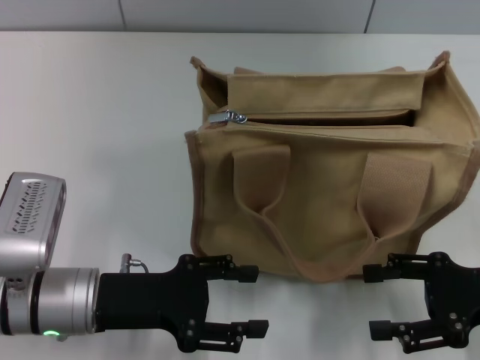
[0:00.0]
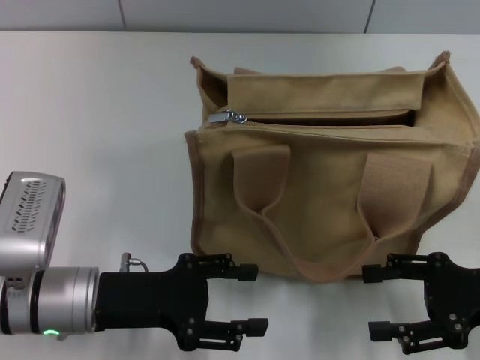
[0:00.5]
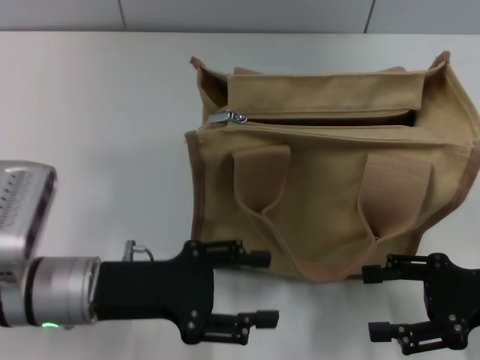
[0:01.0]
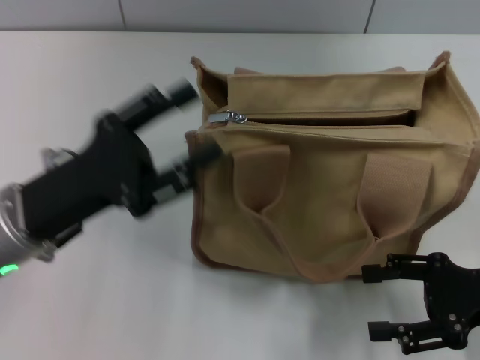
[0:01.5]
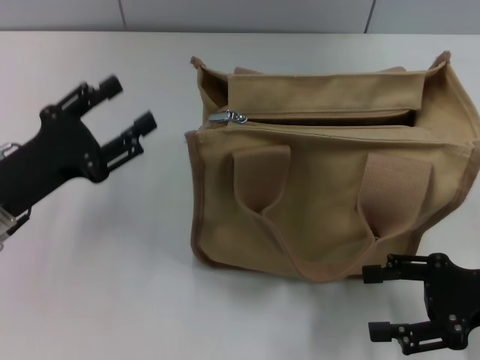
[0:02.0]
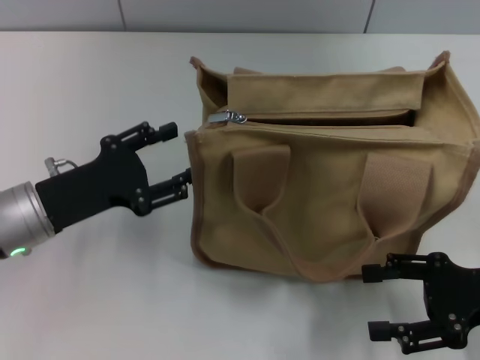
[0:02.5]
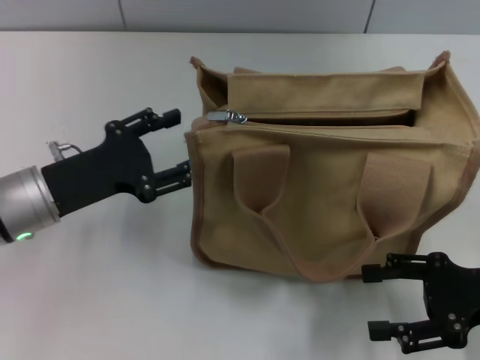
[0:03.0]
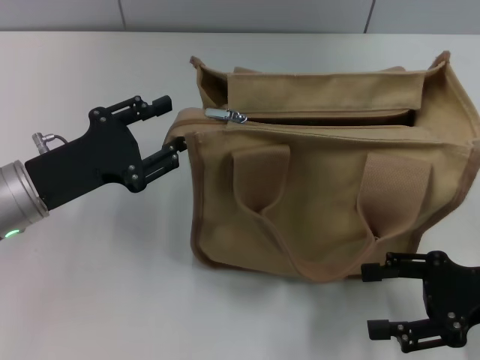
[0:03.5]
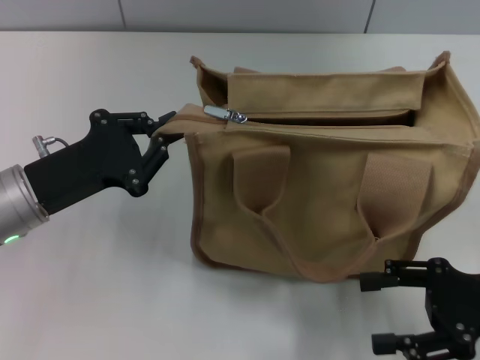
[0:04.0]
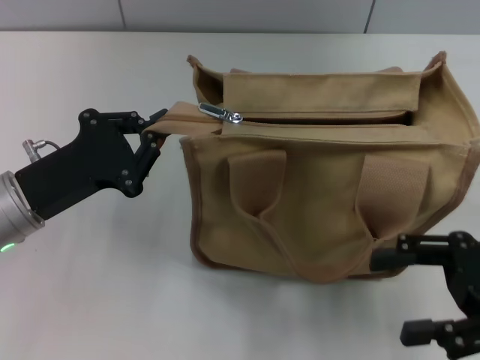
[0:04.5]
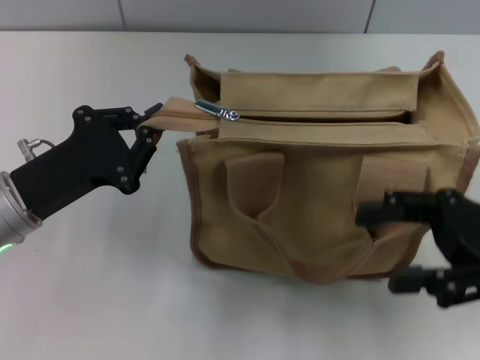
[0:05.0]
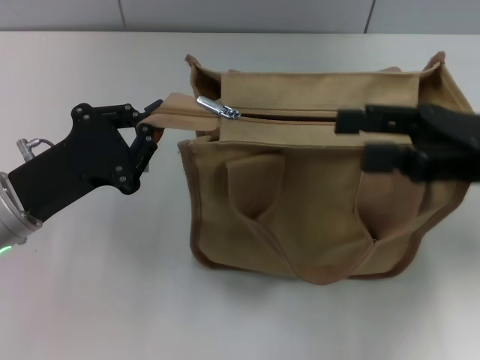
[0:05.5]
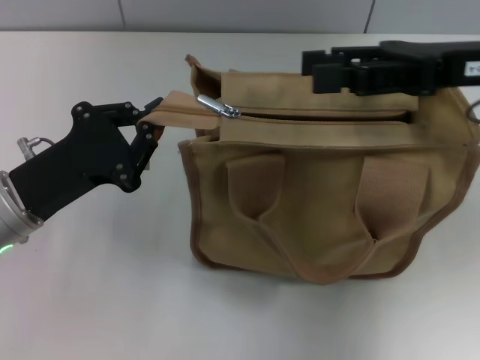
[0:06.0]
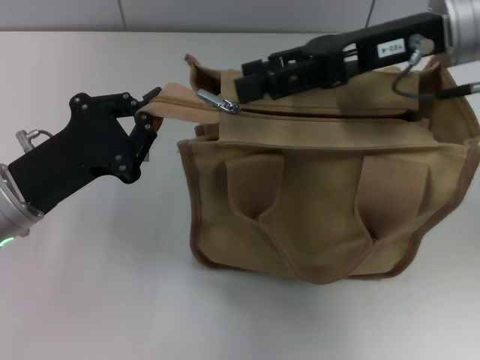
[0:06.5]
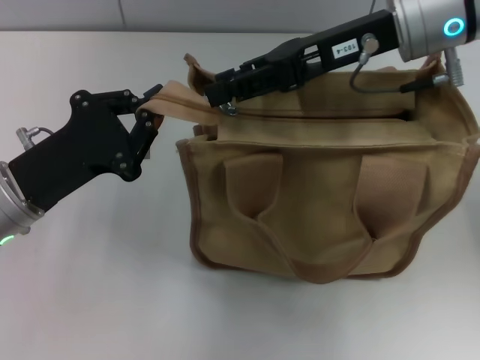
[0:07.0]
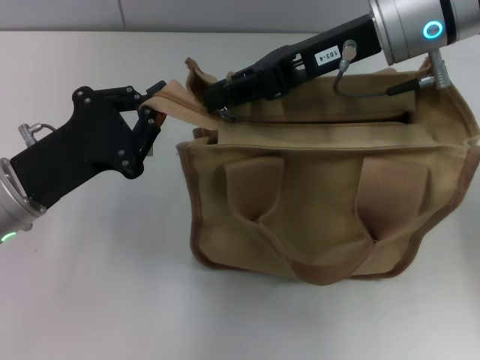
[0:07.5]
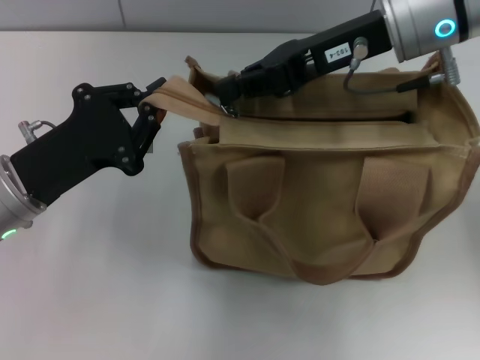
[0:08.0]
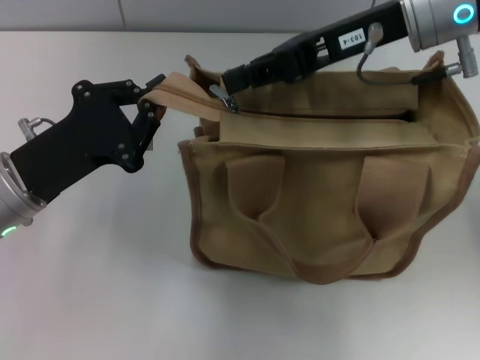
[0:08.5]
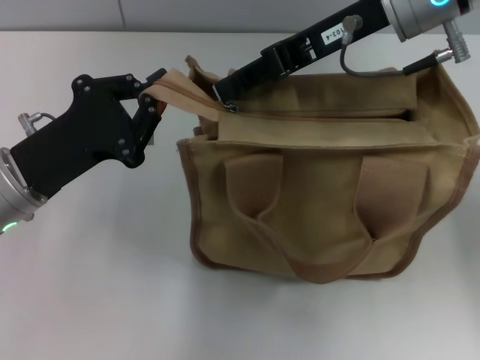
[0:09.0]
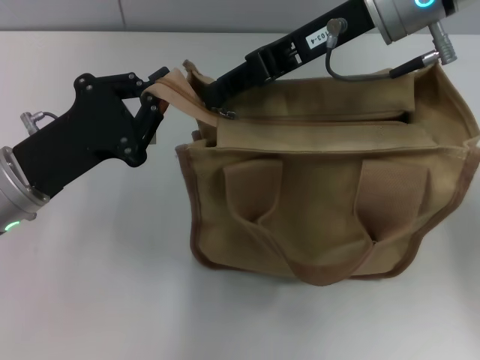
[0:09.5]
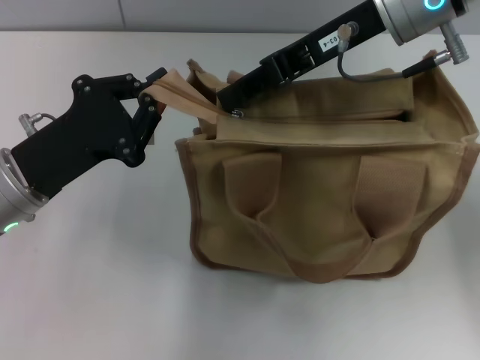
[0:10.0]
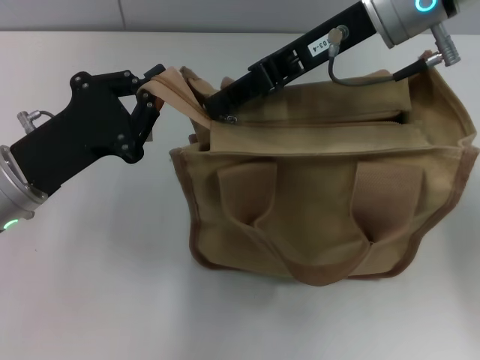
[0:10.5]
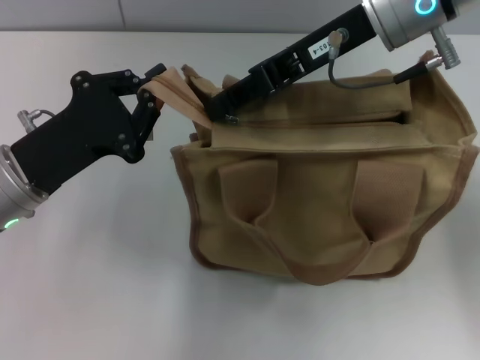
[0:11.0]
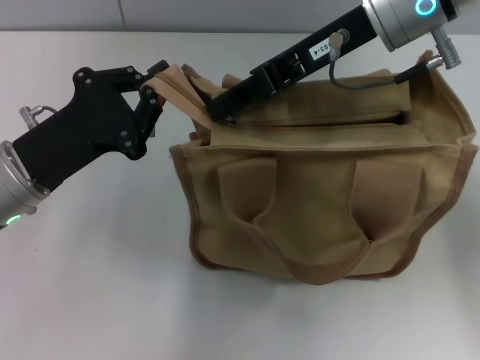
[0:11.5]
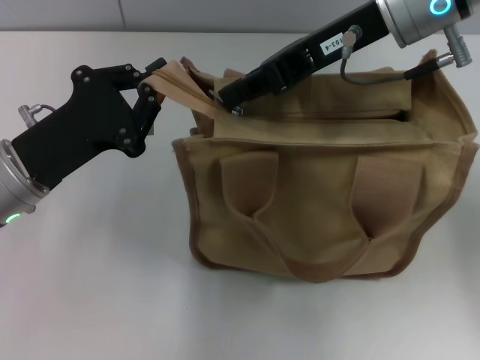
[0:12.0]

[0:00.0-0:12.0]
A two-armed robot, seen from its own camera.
0:00.0 to 0:02.0: The left gripper moves to the left, roughly 5 cm.
0:02.0 to 0:04.0: The left gripper closes.
0:04.0 to 0:06.0: The right gripper goes some 20 cm forward, upward and to the left.
0:06.0 to 0:08.0: The right gripper heads to the left, covering approximately 10 cm, and closes its fingers.
0:08.0 to 0:10.0: There are only small adjustments of the grippers.
0:10.0 to 0:12.0: Both grippers stay about where they are.

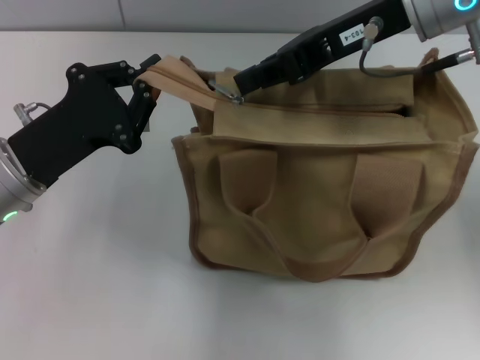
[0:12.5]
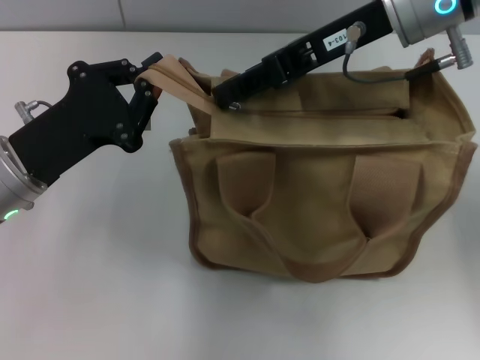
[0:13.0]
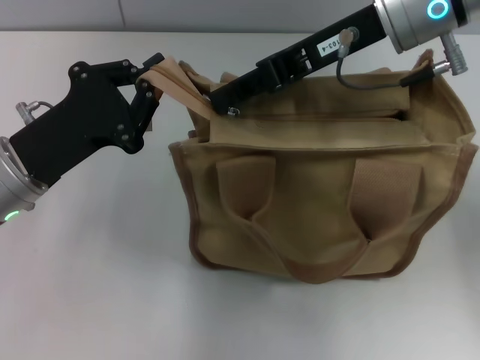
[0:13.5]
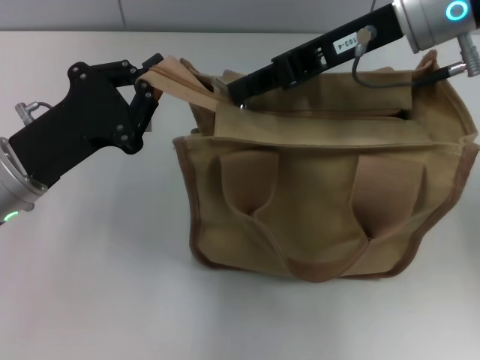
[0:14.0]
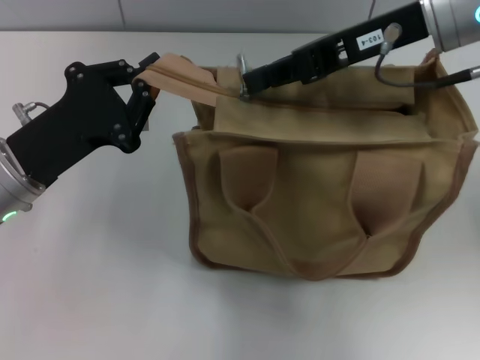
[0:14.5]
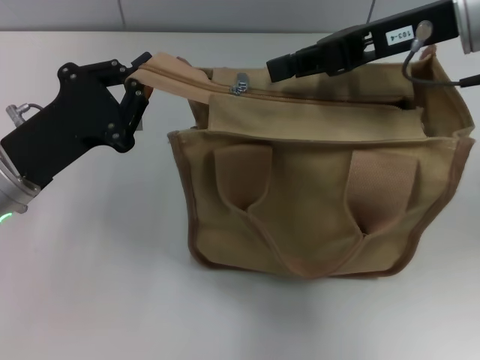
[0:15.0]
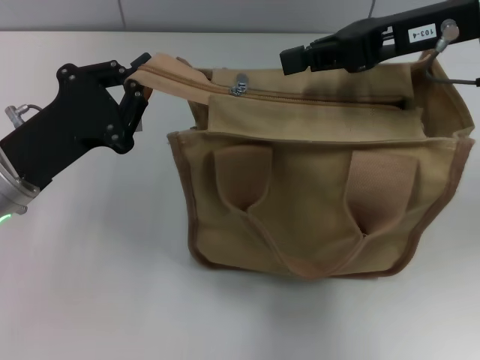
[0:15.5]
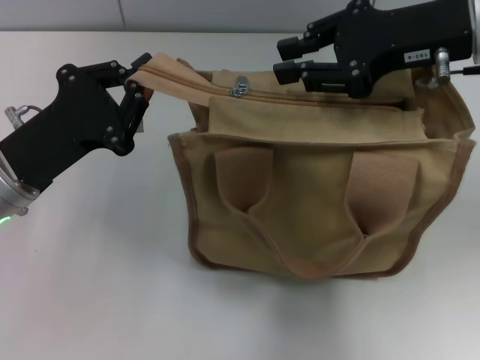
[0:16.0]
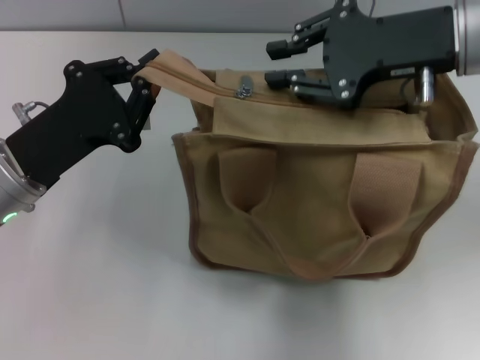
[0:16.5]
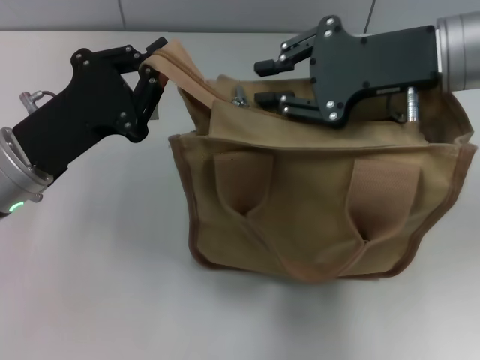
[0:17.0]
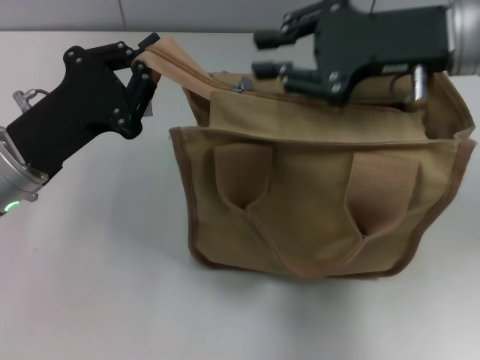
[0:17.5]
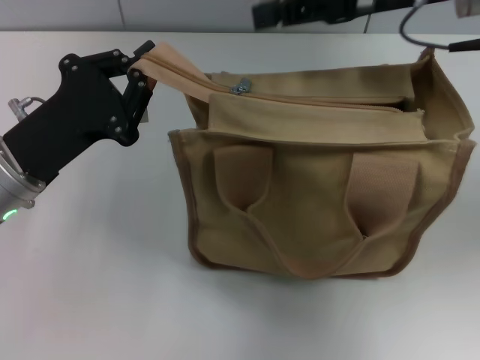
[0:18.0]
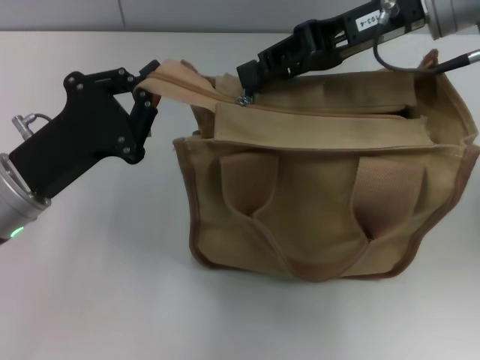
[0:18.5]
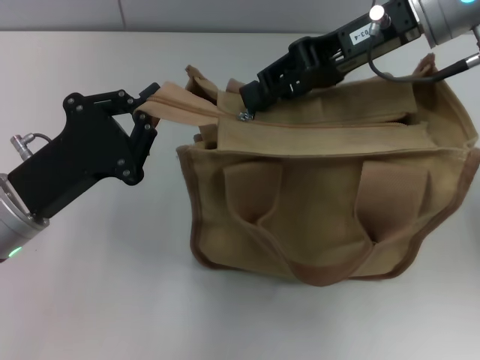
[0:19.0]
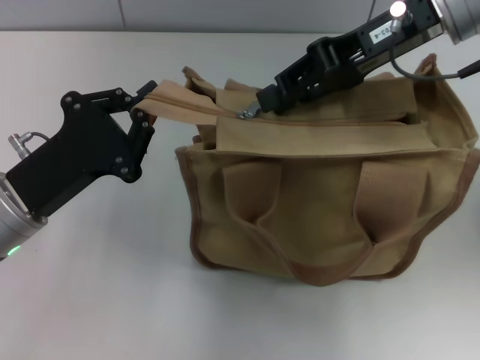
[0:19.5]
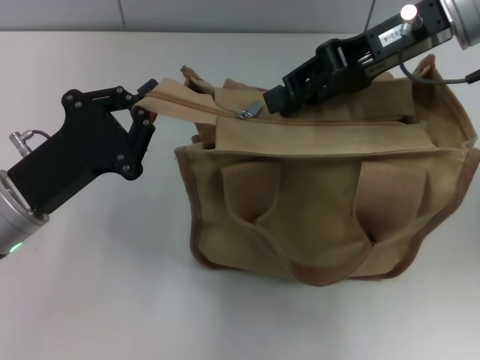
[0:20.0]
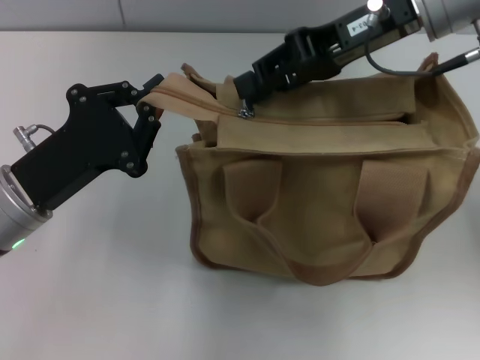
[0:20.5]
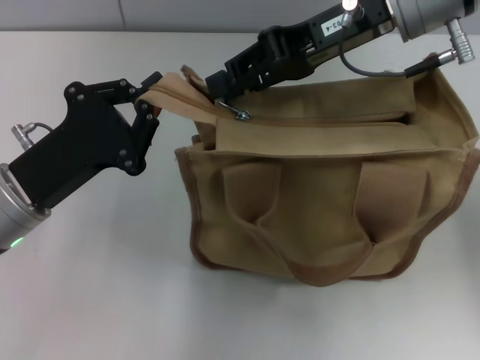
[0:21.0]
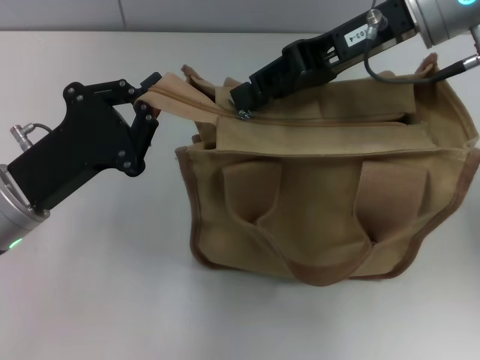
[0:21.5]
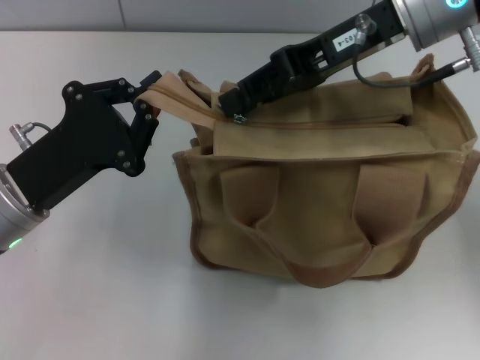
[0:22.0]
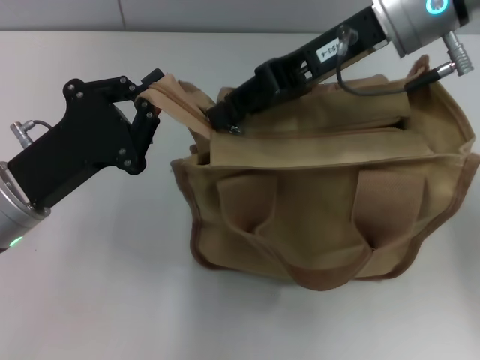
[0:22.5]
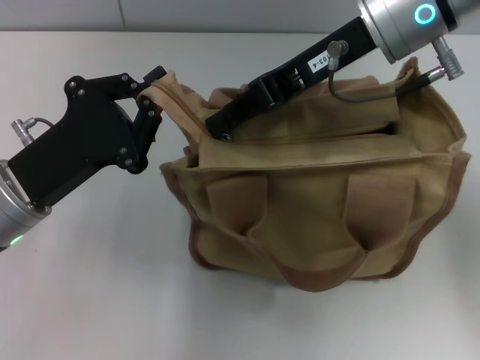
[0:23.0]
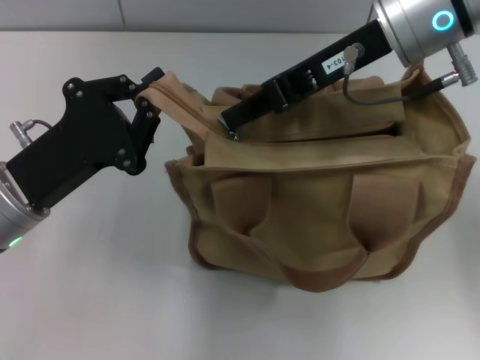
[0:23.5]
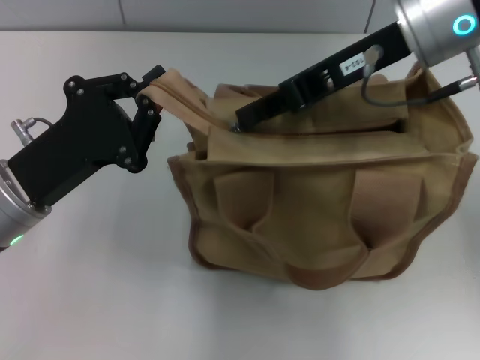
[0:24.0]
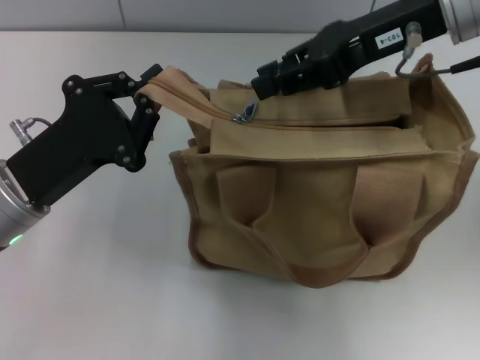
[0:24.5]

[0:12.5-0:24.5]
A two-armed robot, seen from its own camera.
0:12.5 to 0:14.5: There are only small adjustments of the grippers.
0:14.5 to 0:16.5: The right gripper opens its fingers.
0:16.5 to 0:18.5: The right gripper changes place by roughly 5 cm.
0:18.5 to 0:22.5: The grippers move only a little.

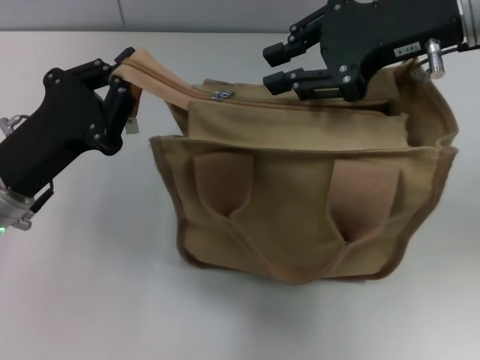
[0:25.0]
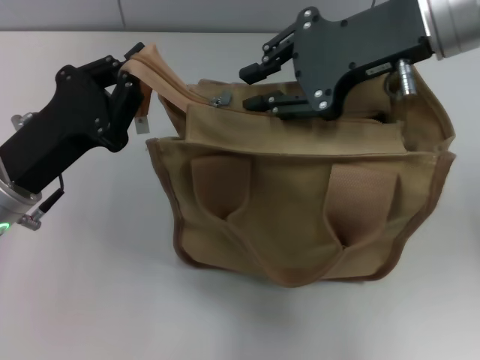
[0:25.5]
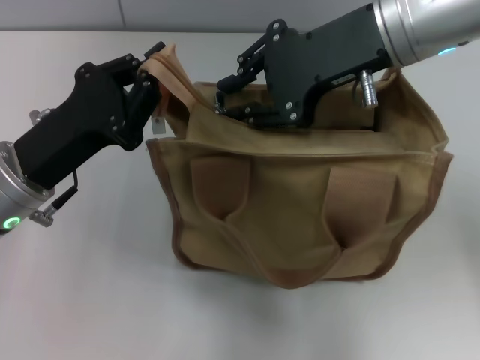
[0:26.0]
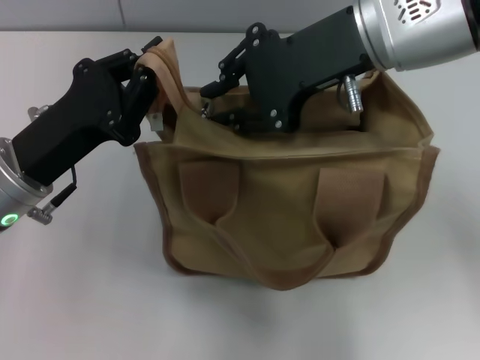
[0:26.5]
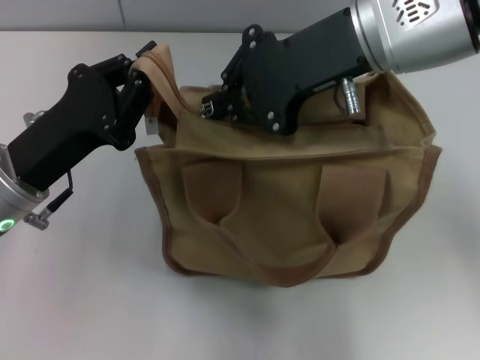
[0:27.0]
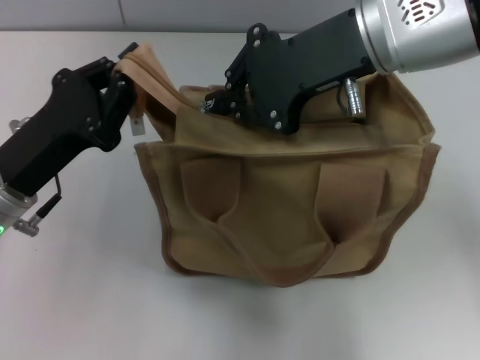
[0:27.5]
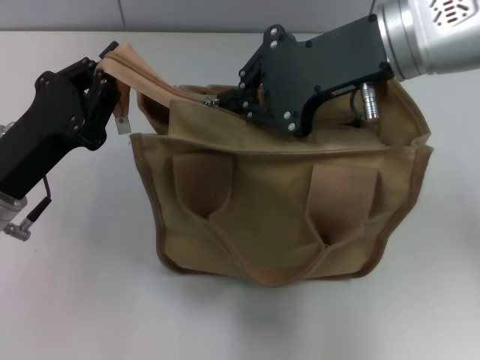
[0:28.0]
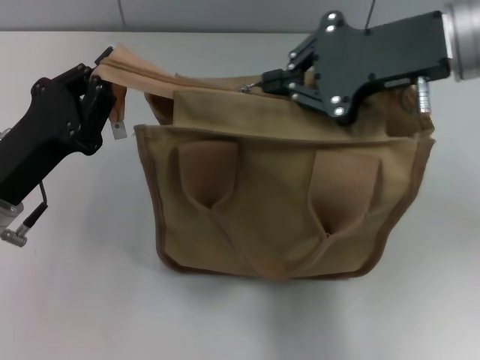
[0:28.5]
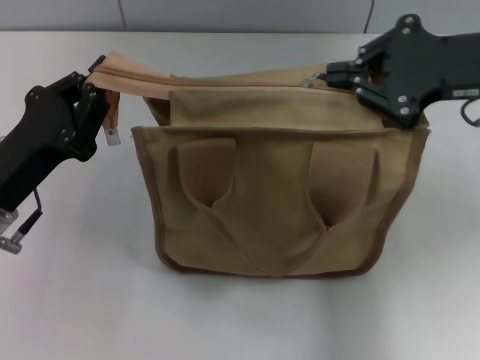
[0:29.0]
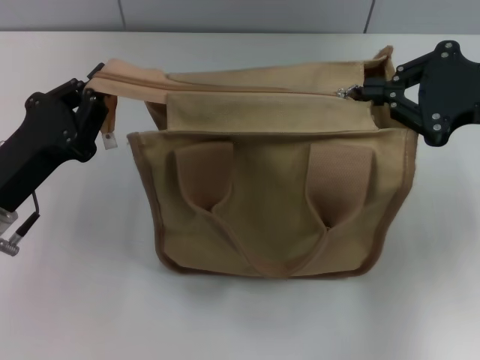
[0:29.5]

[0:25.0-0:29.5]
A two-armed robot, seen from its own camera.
0:25.0 to 0:27.0: The right gripper heads to the left, covering approximately 5 cm.
0:27.0 to 0:29.5: The right gripper travels to the right by approximately 15 cm.
